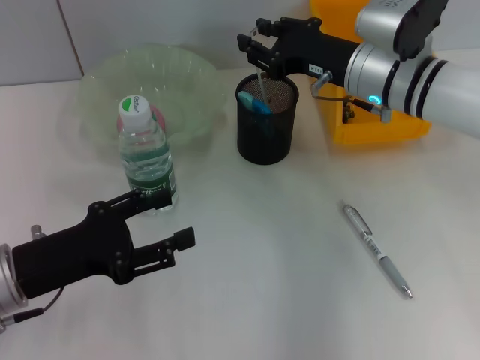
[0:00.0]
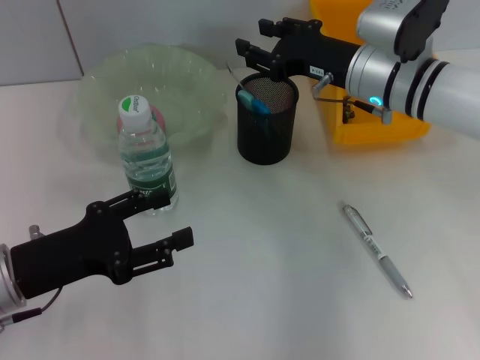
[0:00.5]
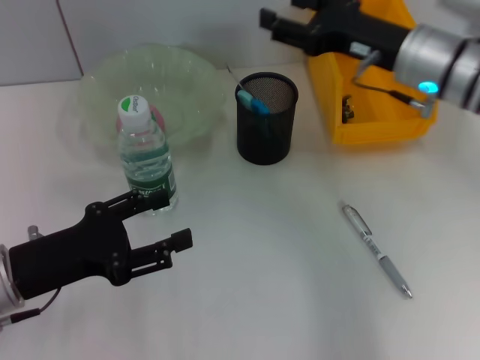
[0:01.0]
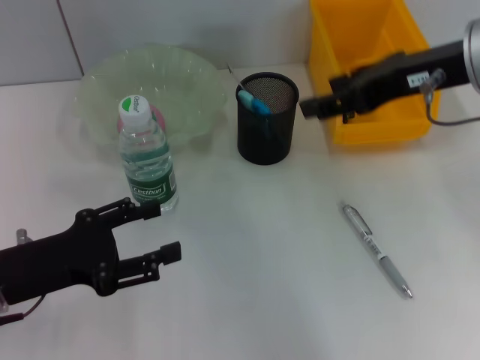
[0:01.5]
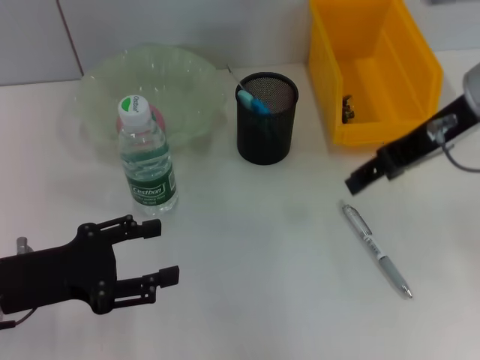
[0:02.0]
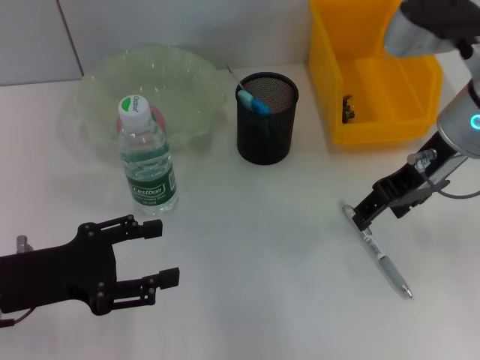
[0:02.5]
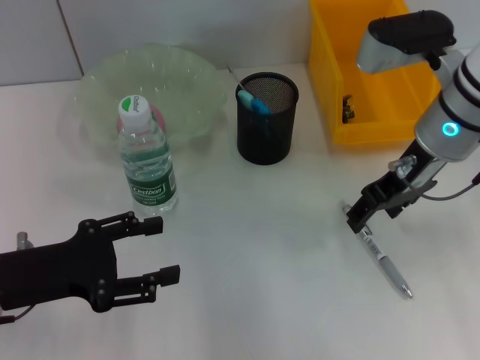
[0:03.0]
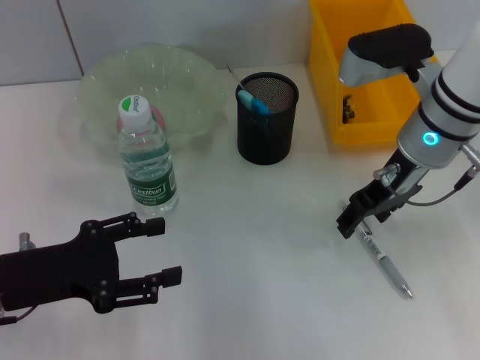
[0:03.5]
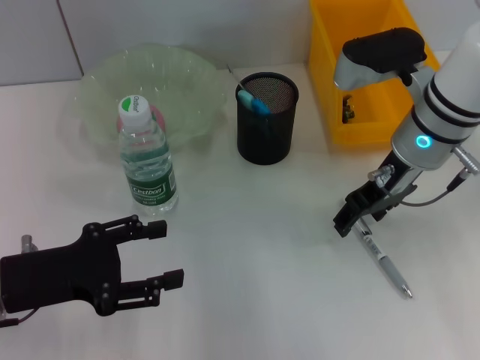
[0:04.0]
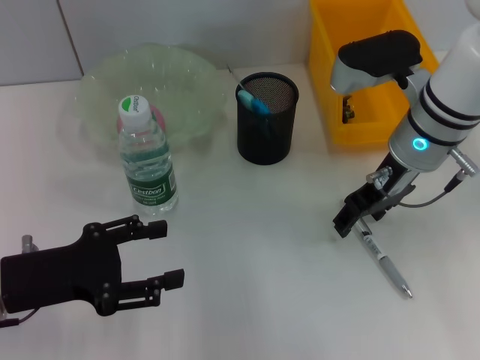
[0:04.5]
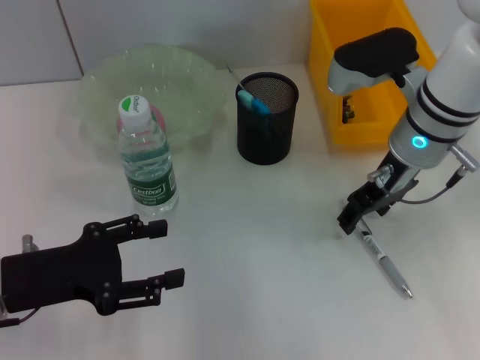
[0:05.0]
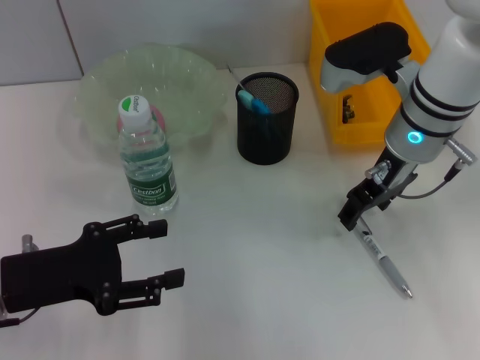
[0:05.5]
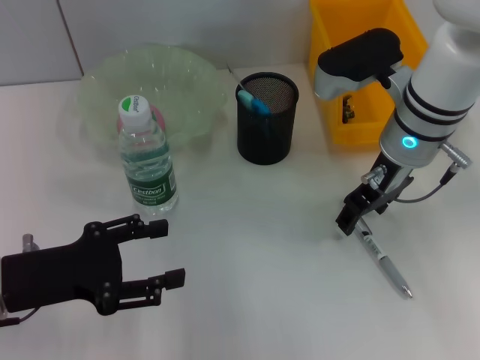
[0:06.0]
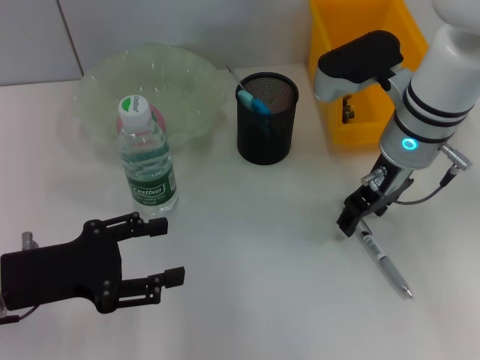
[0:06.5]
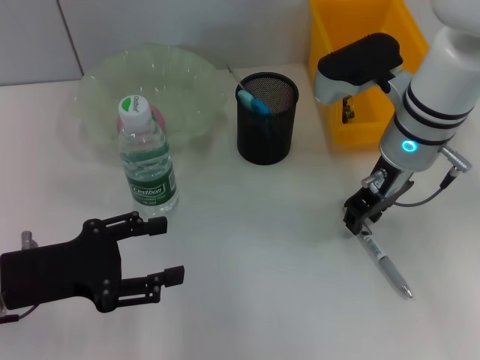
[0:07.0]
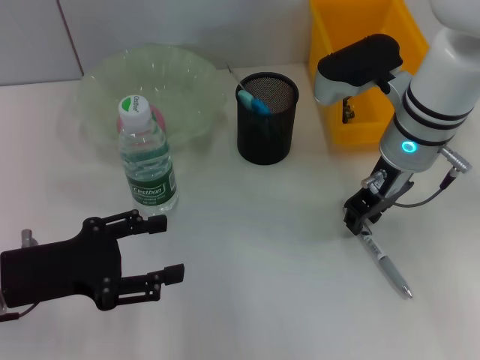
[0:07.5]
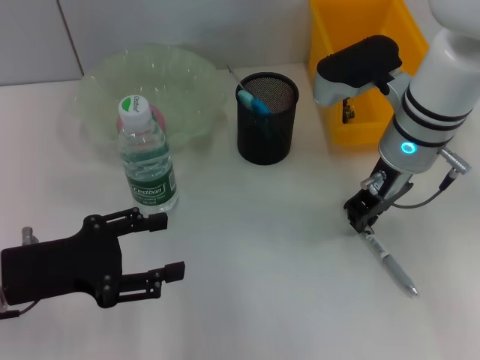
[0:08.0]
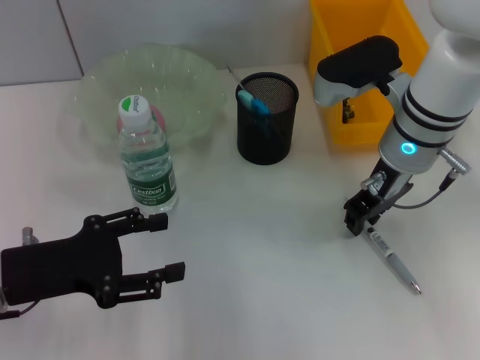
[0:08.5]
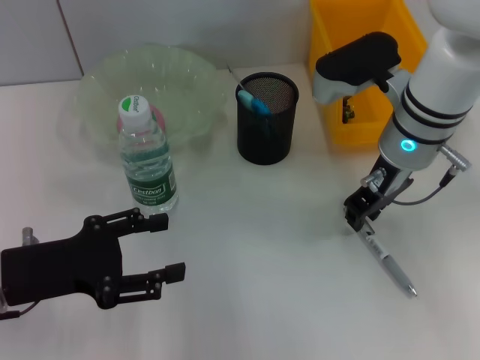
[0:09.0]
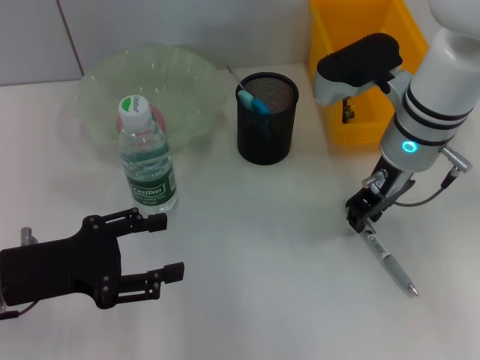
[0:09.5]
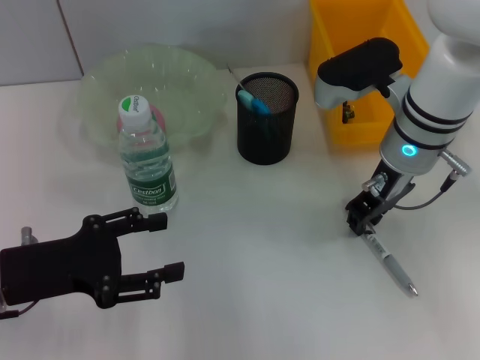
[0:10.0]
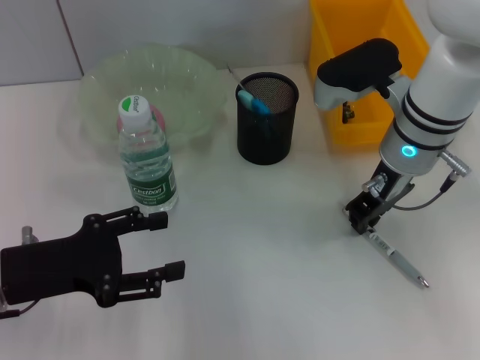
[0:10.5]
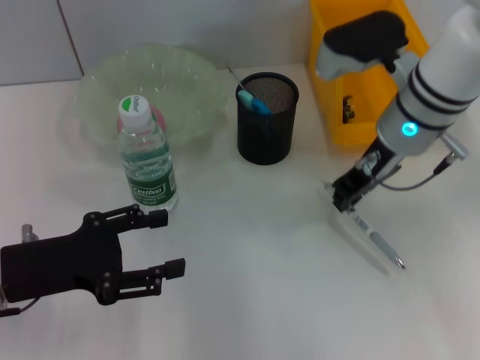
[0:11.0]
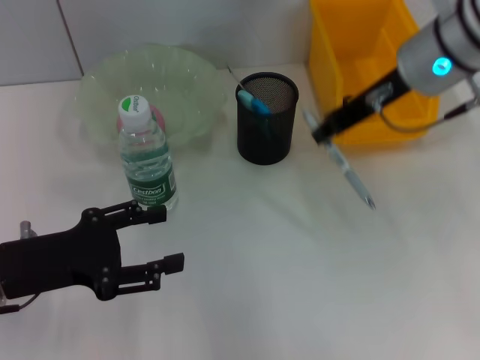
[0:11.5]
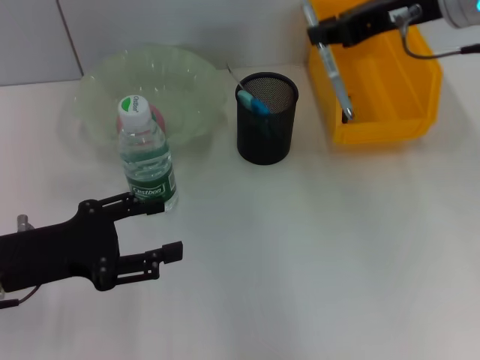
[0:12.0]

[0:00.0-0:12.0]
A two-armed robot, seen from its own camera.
Step, 0:00.5 to 0:10.0: Grab the gray spring-action pen with the right hand.
0:00.0 to 0:02.0: The right gripper travels upward and backward by about 15 cm, and opens.
0:02.0 to 0:04.0: The right gripper heads downward, covering some 10 cm.
0:04.0 to 0:06.0: The grippers make only small movements.
0:06.0 to 0:08.0: The right gripper closes.
0:08.0 to 0:10.0: The two grippers keep their place.
0:10.0 to 0:12.0: The right gripper is displaced upward by about 15 cm.

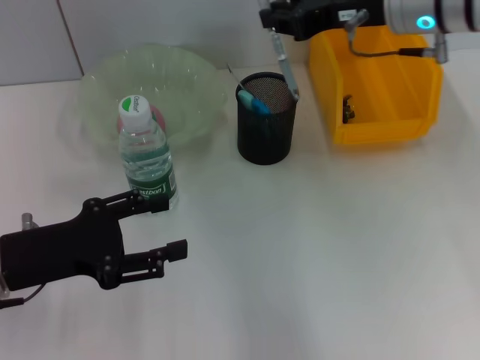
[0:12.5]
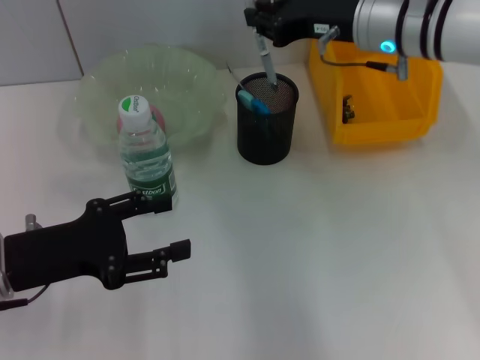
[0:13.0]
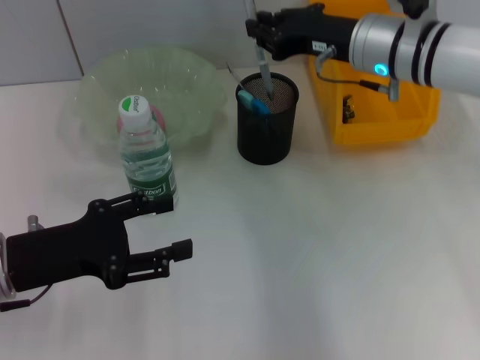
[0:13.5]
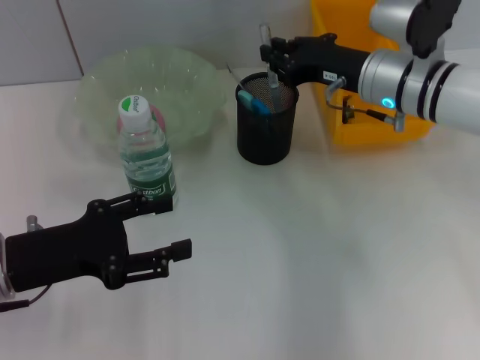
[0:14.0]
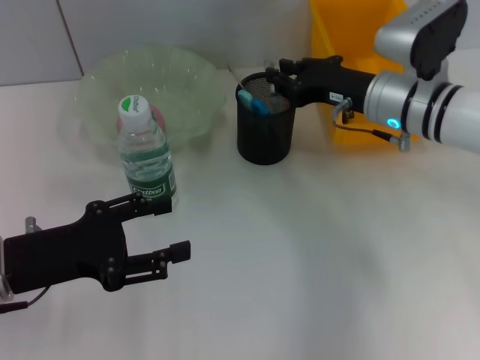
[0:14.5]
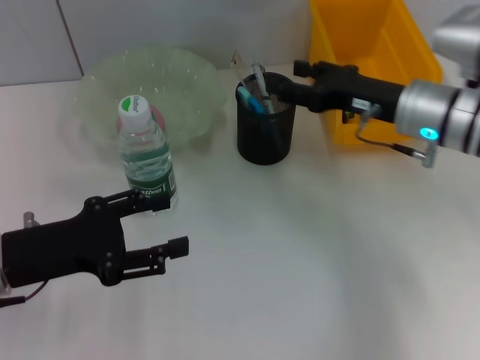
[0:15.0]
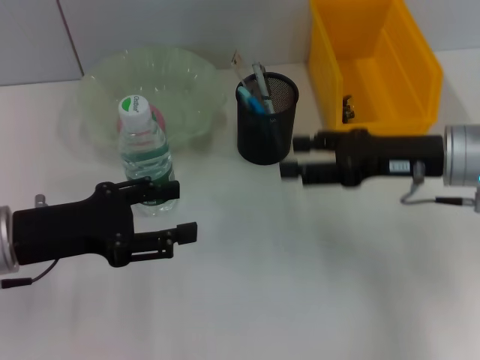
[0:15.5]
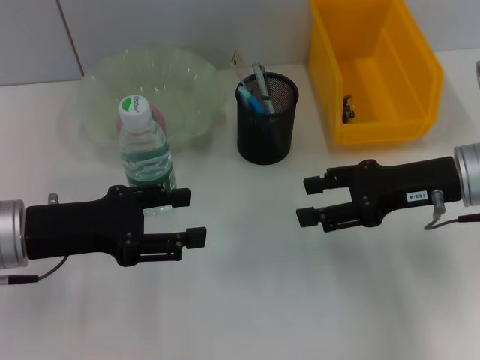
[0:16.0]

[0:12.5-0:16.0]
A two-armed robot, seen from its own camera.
Step, 0:12.5 to 0:14.5: Place the gray spring-action pen into the pen holder with the right hand.
0:12.5 to 0:14.5: The right gripper shifts roughly 10 cm downward.
0:14.5 to 0:16.0: The right gripper travels backward and to the right by about 10 cm, and opens up.
